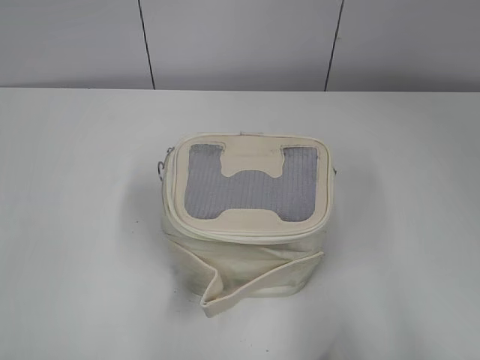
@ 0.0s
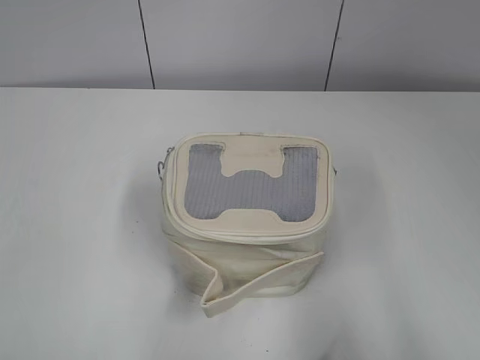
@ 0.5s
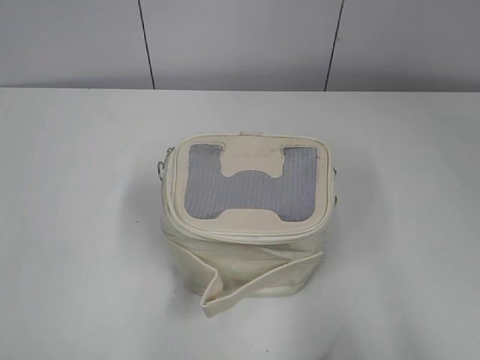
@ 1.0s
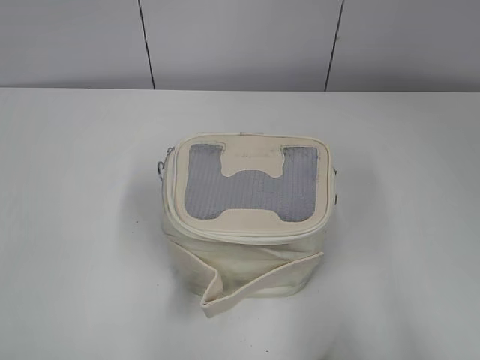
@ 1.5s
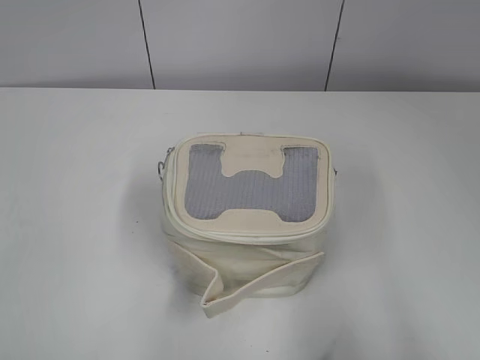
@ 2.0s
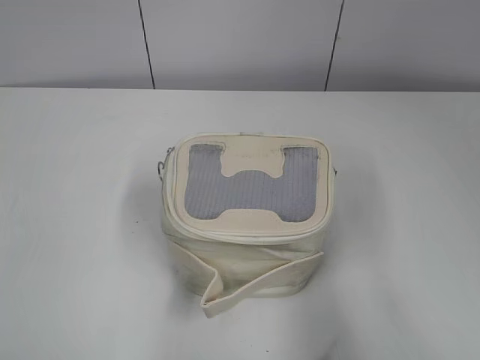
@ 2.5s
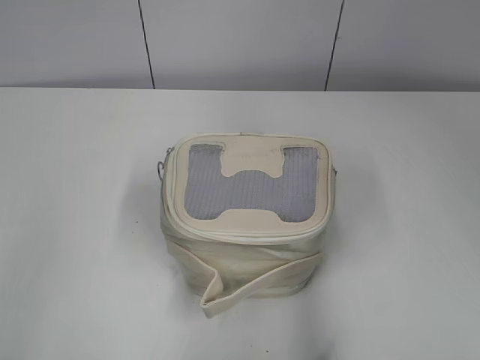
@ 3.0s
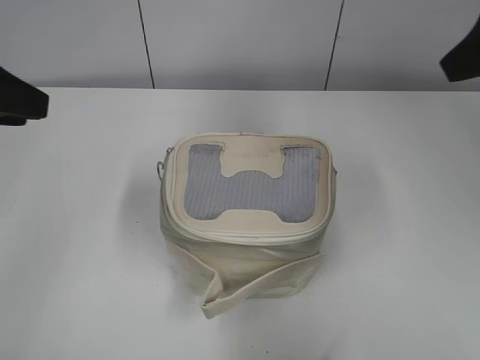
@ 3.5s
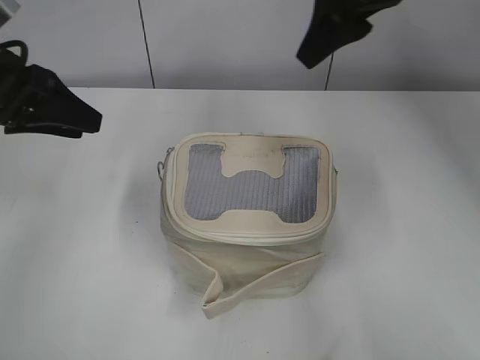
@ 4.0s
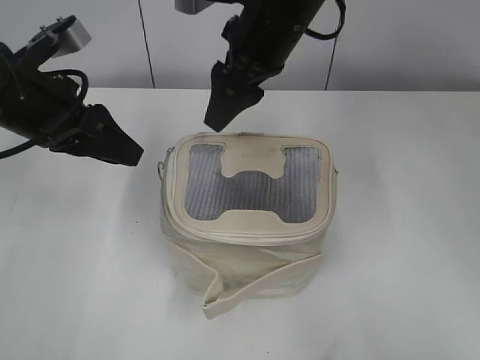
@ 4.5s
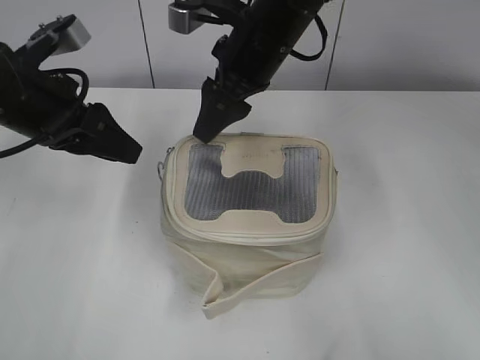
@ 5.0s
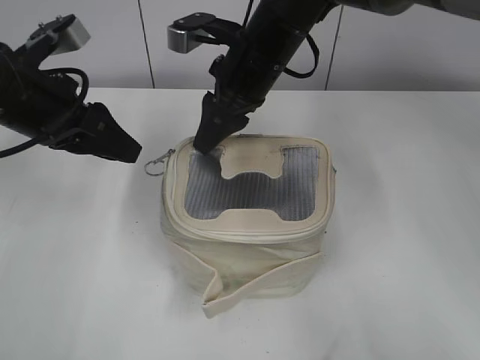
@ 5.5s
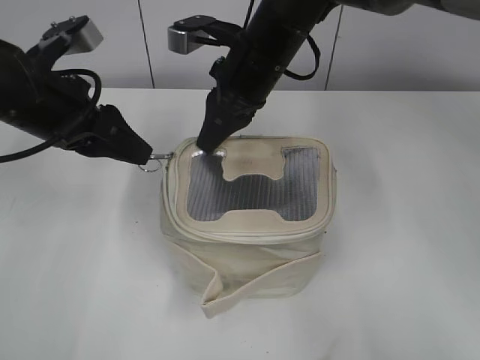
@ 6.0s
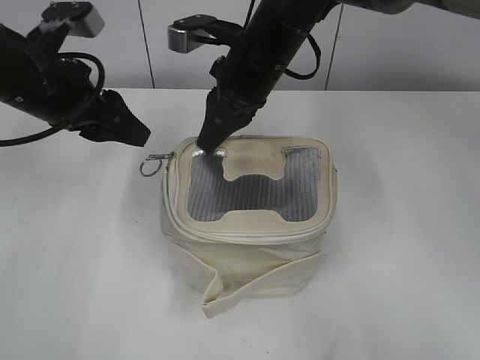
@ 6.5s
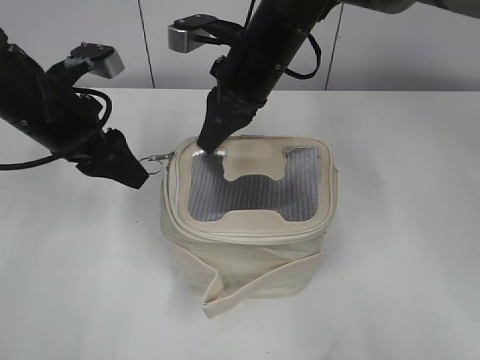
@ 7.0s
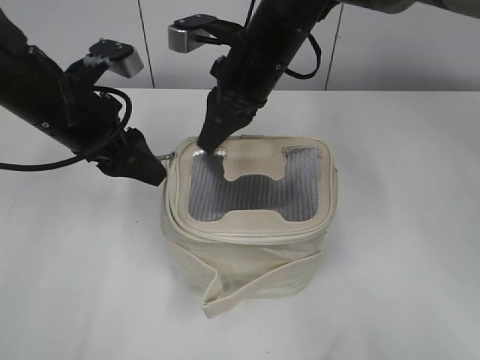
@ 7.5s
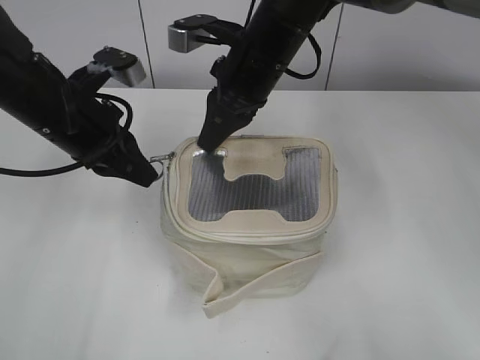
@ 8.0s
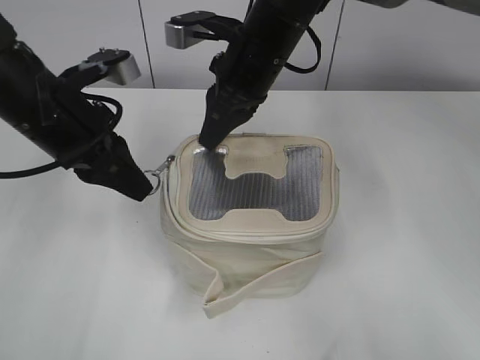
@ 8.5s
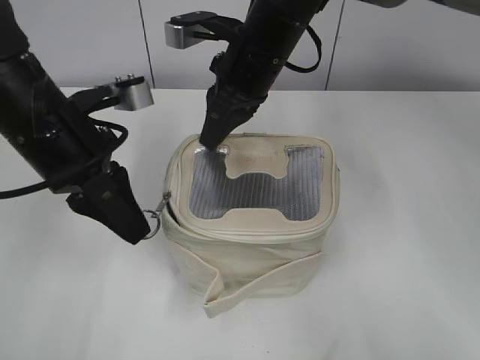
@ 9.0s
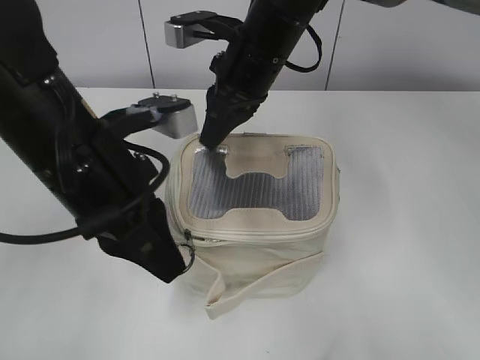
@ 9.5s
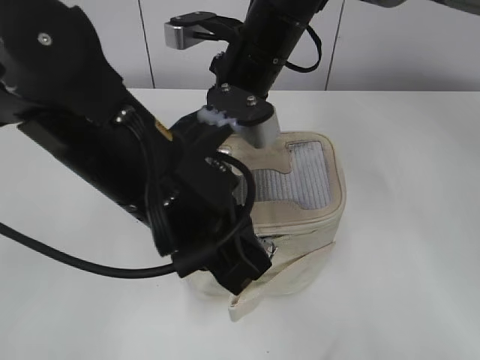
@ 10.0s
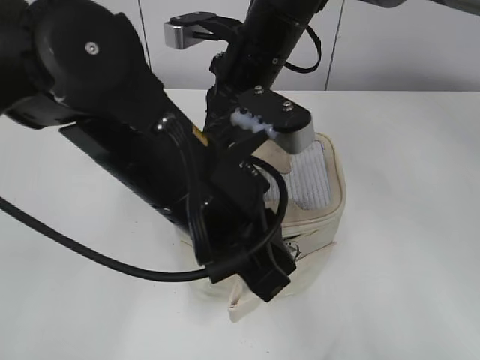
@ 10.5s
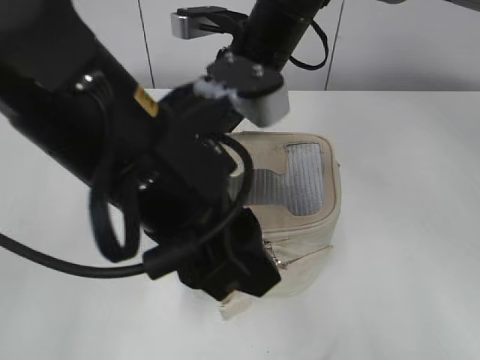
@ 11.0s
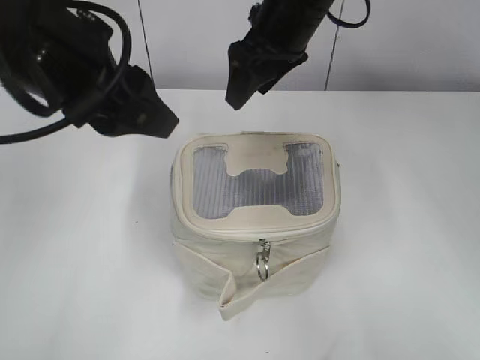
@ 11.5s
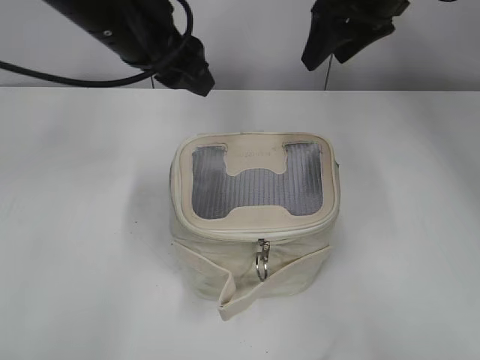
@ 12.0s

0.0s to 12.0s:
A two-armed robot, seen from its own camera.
Step, 0.0s to 10.5s: Zip up the bag with your left hand.
2.0s to 4.0s: The right gripper goes approximately 40 cm forward and to the left. The left gripper heads forward, covering roughly 30 cm.
4.0s to 6.0s: The right gripper is displaced downward and to the left by approximately 15 cm, and closes, while the left gripper is displaced to the right by about 5 cm.
6.0s to 8.0s: The left gripper closes up.
8.0s to 10.0s: The left gripper travels backward and to the right by roughly 15 cm.
10.0s to 12.0s: The right gripper shifts some 15 cm to the right and upward, and opens its fingers. The left gripper goes approximately 15 cm forward and upward, and opens its fingers.

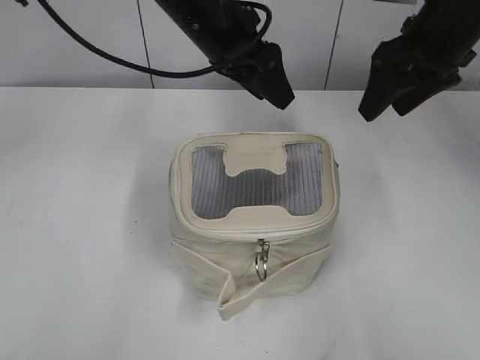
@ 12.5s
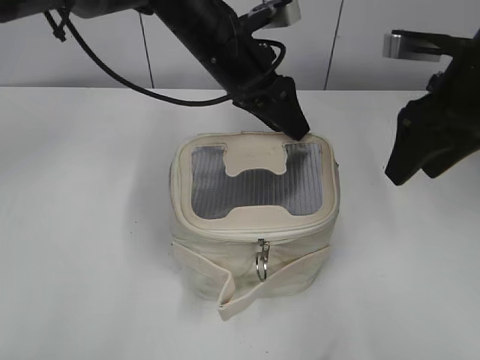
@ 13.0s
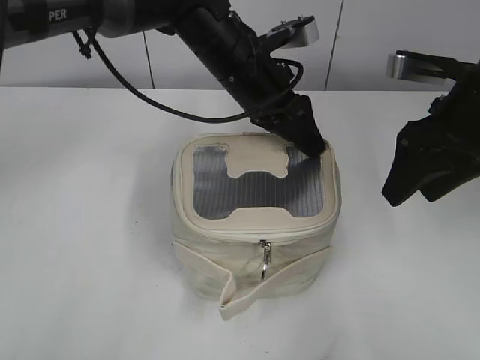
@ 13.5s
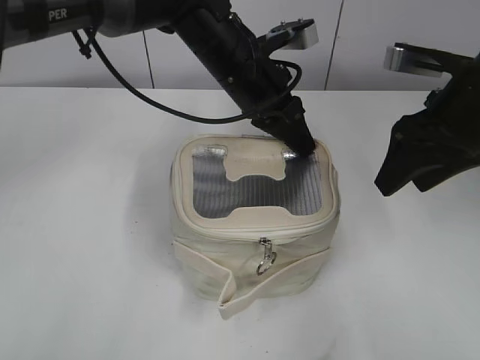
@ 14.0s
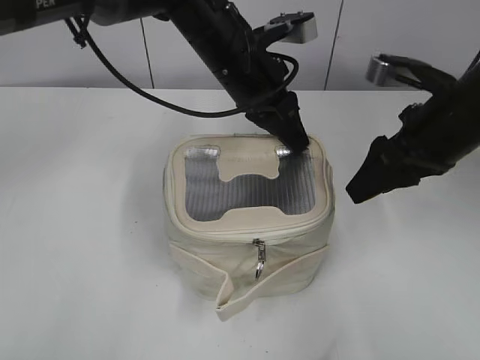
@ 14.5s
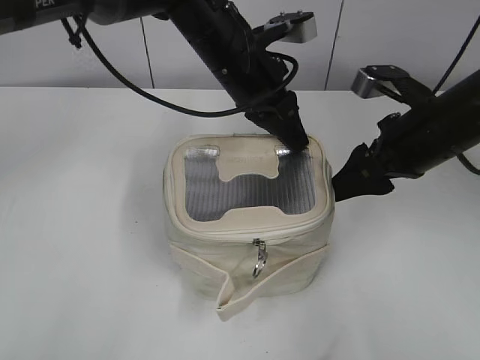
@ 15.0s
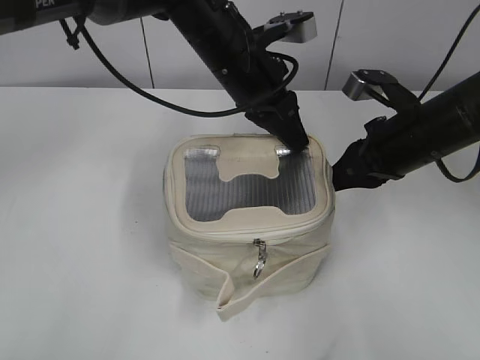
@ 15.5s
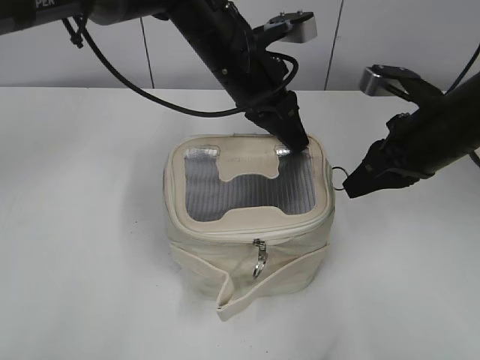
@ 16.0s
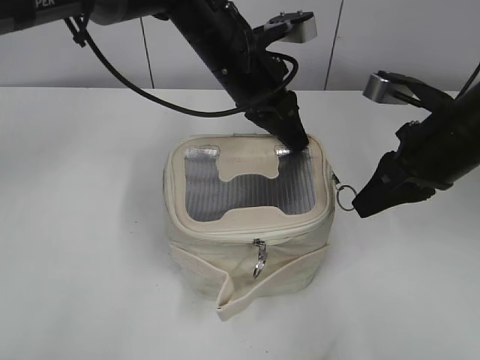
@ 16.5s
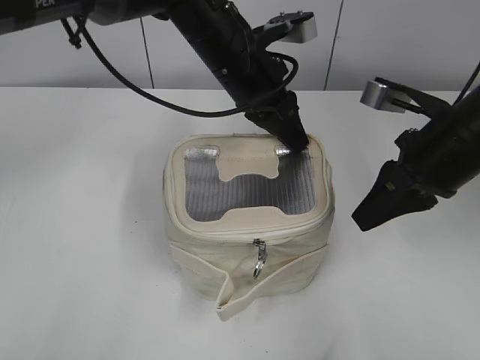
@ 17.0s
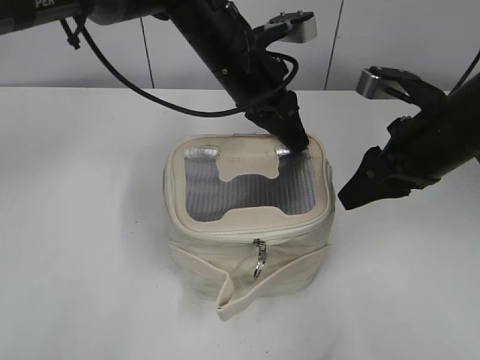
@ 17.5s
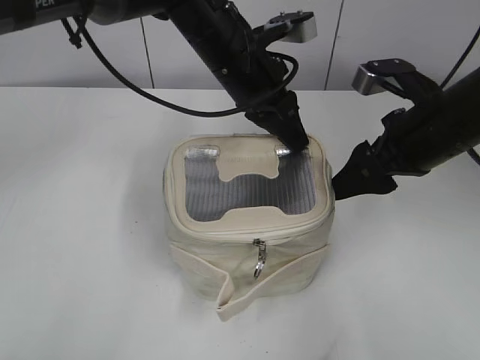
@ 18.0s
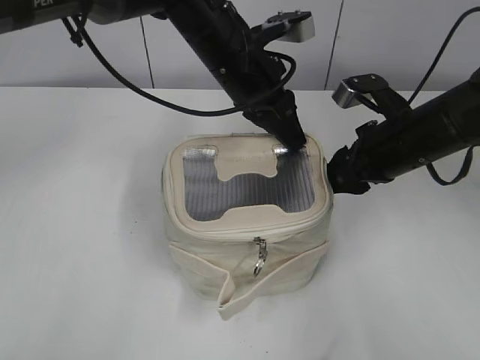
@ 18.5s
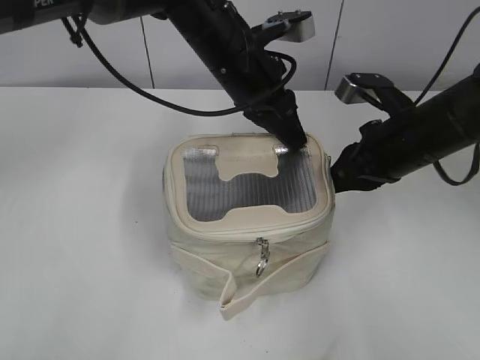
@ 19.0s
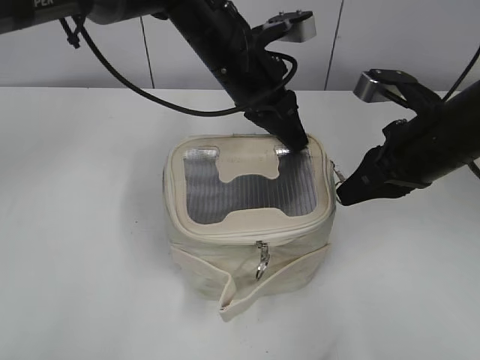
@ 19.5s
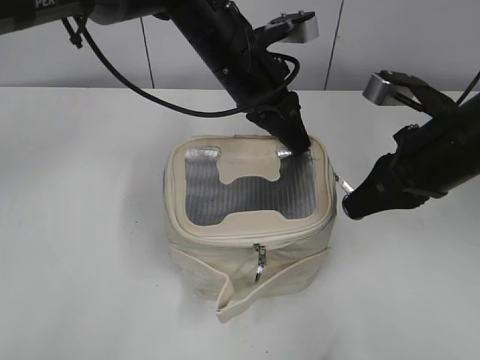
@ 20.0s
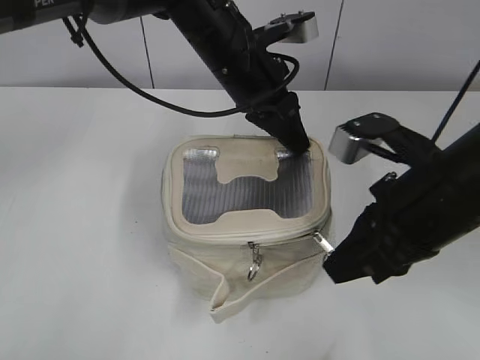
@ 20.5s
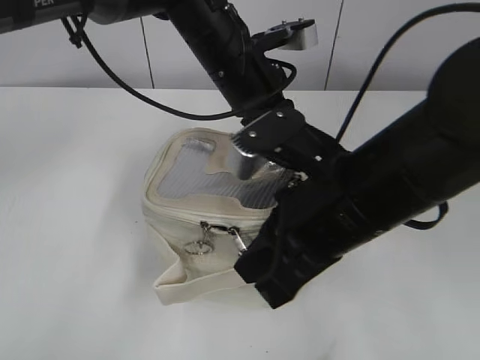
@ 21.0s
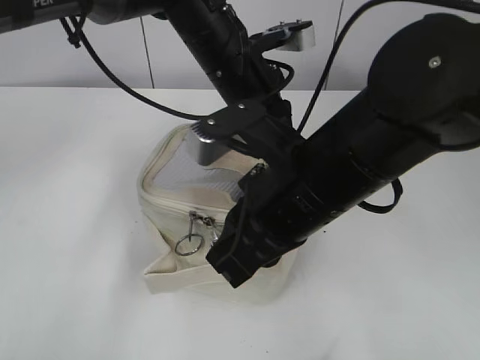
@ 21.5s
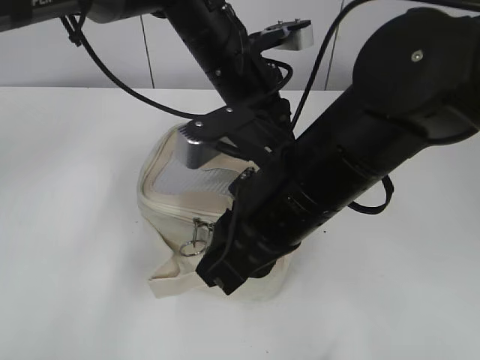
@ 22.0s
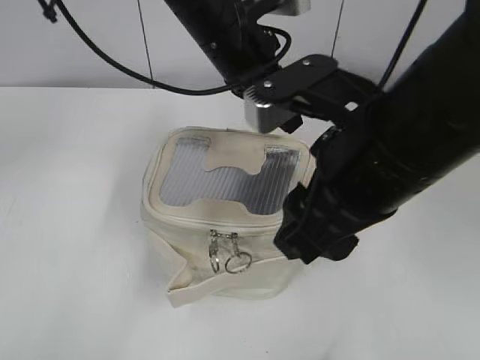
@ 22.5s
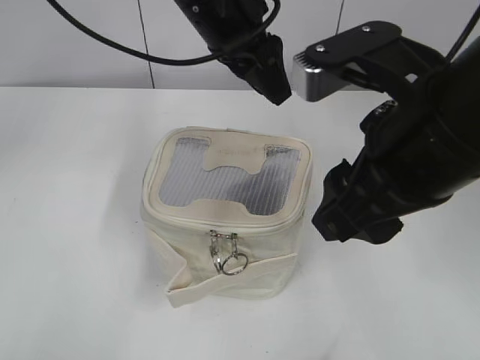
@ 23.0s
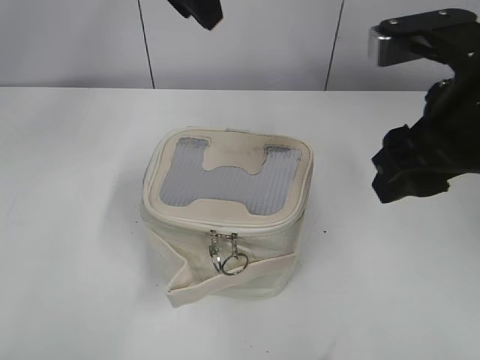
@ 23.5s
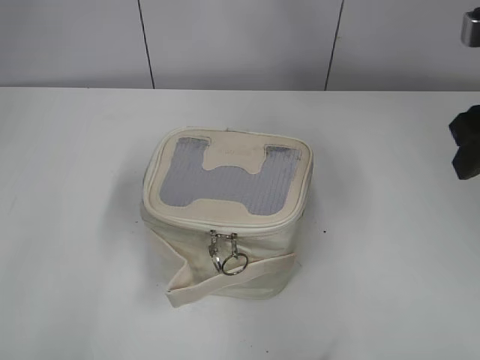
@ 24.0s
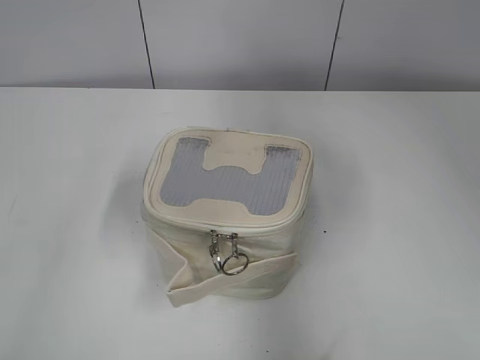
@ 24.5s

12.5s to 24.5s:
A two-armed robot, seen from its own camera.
Step, 12.5s to 22.0s: Zip up the bag with your right hand.
12.5s to 14.5s: The left gripper ends up about 5 cm from where it was, and closes its fingers, while the right gripper heads backward and downward, covering some 10 cm.
14.5s to 16.5s: The right gripper closes up.
16.5s to 18.5s: The right gripper shifts by approximately 5 cm, and opens up.
18.5s to 20.5s: The right gripper travels backward by some 10 cm, and closes its fingers.
20.5s to 22.5s: The right gripper travels to the left and upward by some 10 cm, and opens, while the left gripper opens up.
22.5s to 24.5s: The left gripper heads to the left, upward and backward, covering approximately 35 cm. Meanwhile the right gripper goes roughly 15 cm to the right.

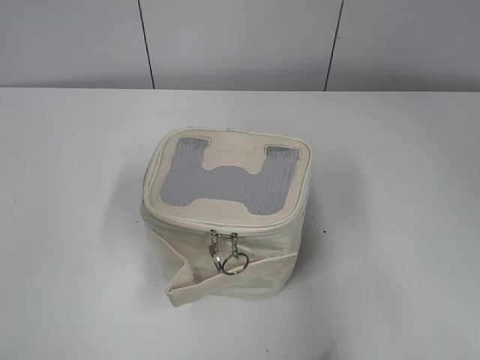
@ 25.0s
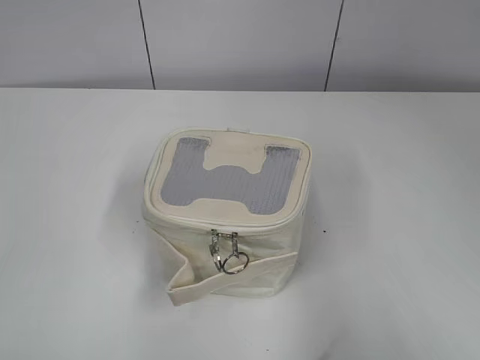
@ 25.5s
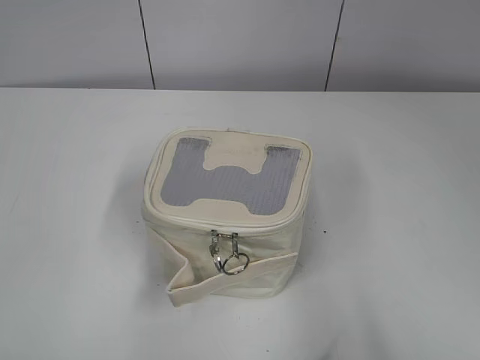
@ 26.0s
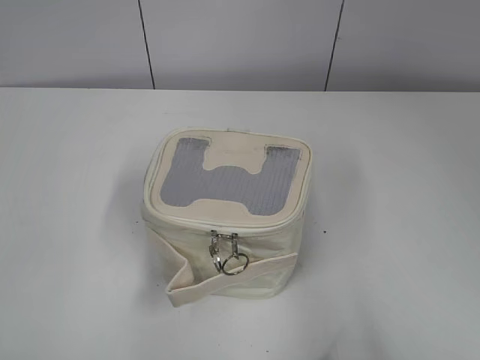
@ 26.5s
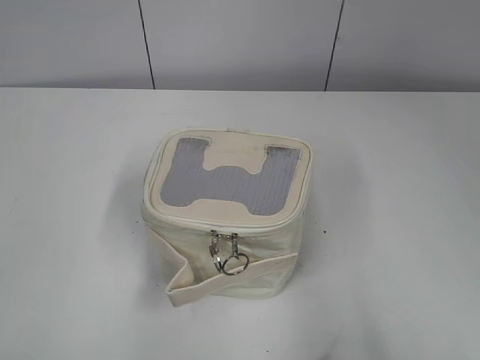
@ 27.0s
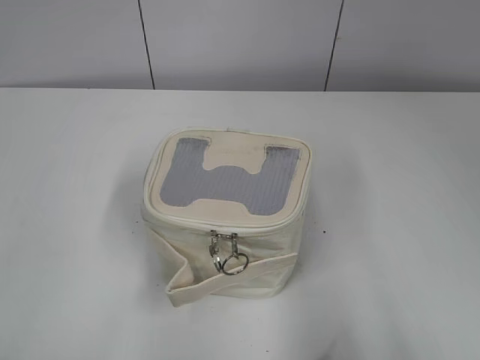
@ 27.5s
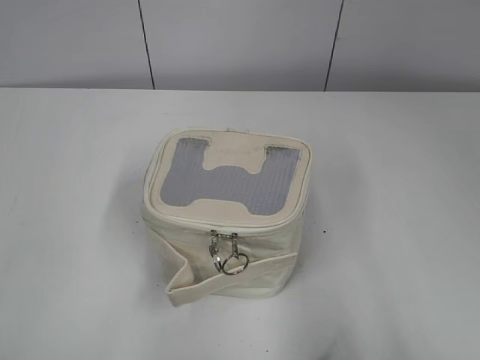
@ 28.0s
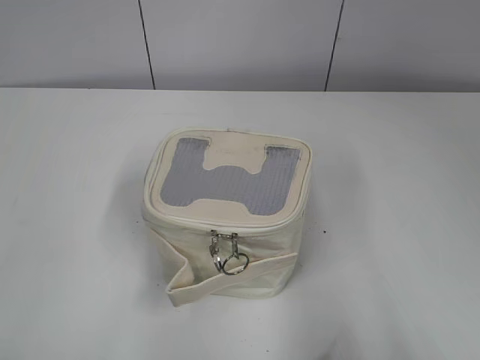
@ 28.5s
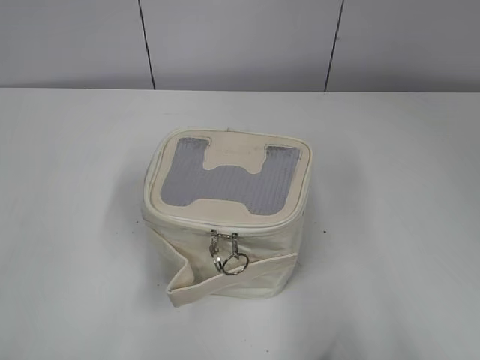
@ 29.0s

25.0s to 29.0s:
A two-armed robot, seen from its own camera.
25.0s to 27.0s: The right gripper moves backward, some 10 cm. Meanwhile the left gripper travels backward and downward by roughly 10 cm.
